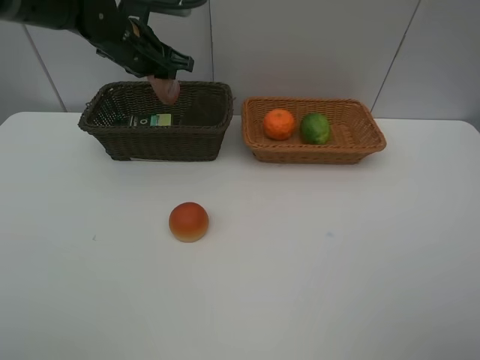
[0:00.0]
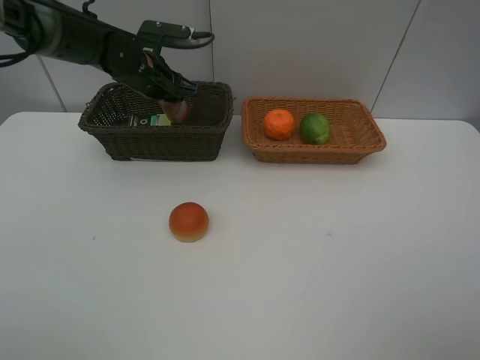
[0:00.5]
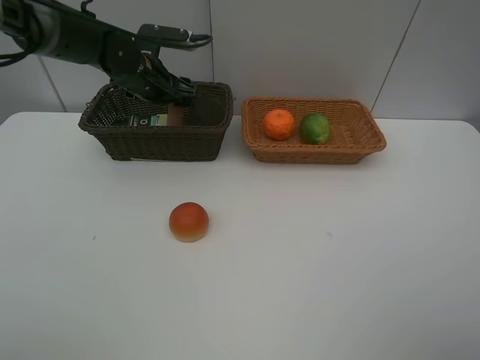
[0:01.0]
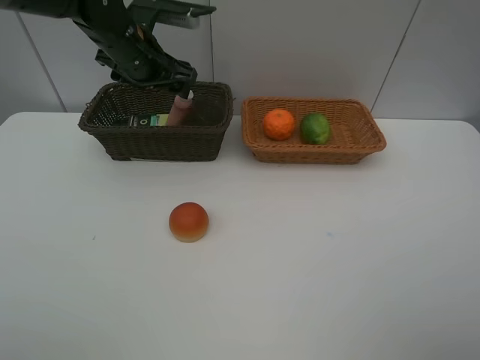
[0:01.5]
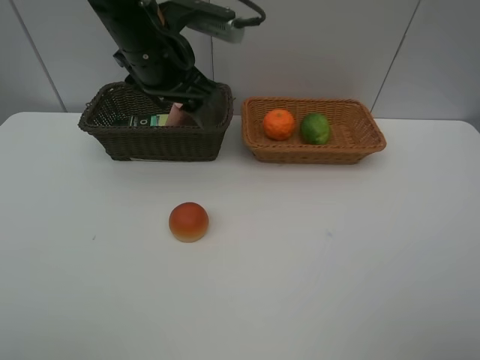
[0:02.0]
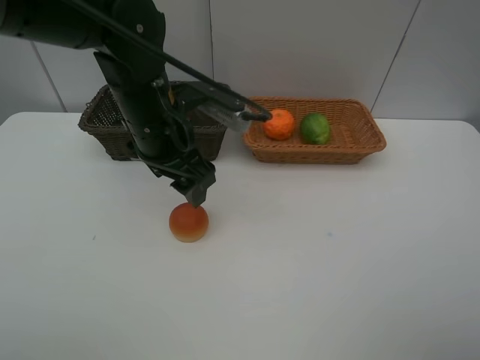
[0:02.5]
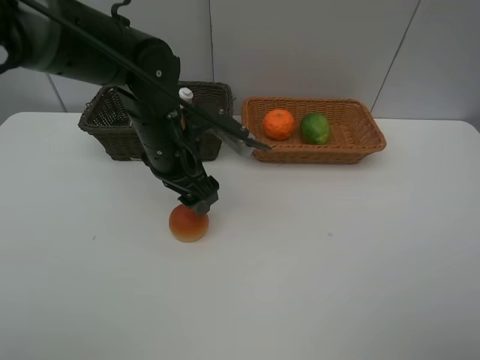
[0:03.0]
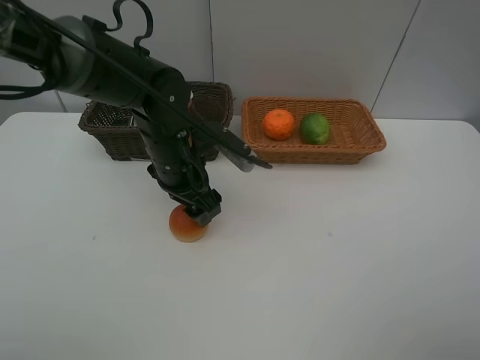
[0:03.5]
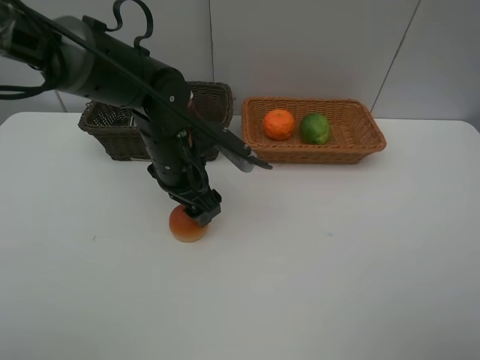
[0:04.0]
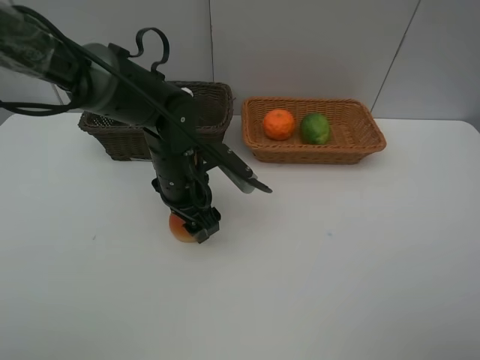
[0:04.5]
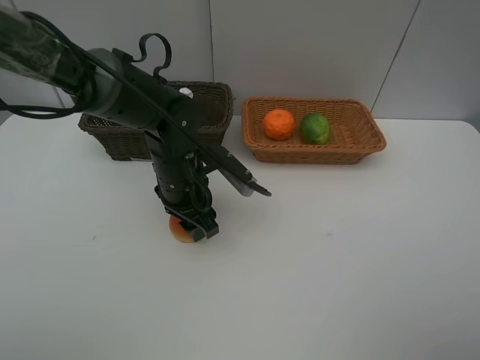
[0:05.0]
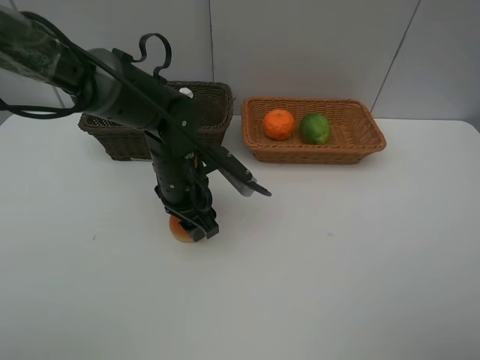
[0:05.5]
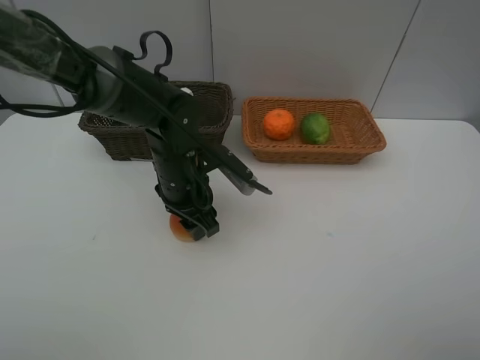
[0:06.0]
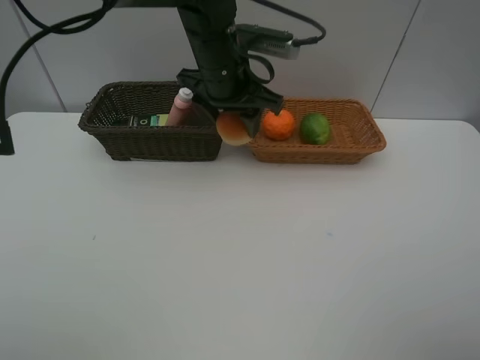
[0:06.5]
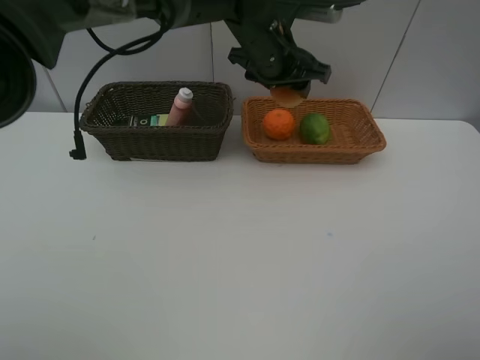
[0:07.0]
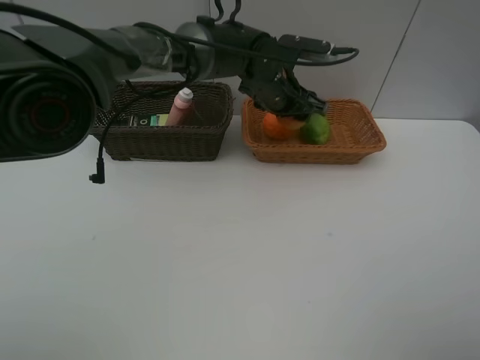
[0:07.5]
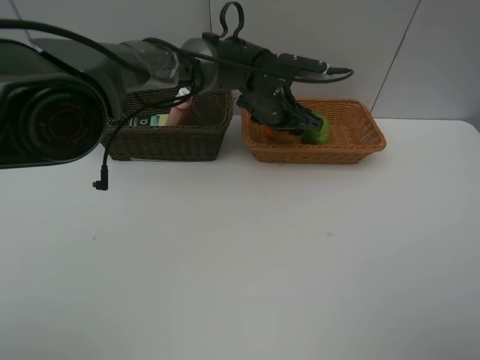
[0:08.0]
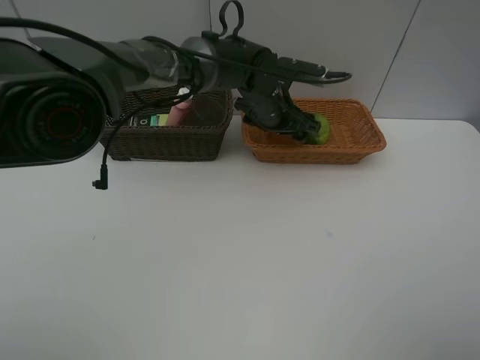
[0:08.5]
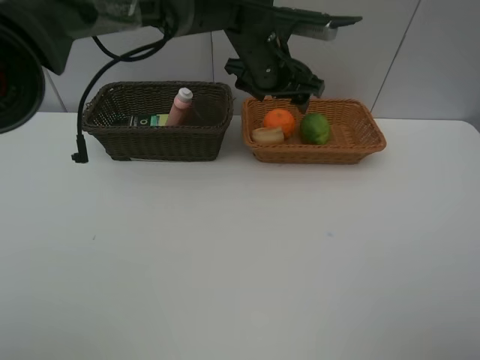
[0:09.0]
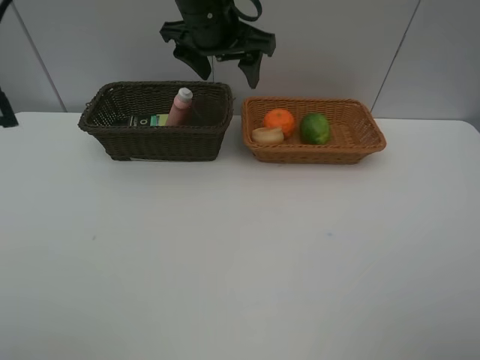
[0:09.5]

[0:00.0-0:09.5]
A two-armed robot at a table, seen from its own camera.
Task of the whole recording: place multiple objects separately in different baskets.
0:00.0 to 0:02.0: The left gripper moves backward, to the right and upward, approximately 15 cm, and opens its fingers.
0:02.0 to 0:04.0: The left gripper shifts roughly 15 cm downward.
0:04.0 to 0:05.5: The grippers stay close to where they were, moving slightly.
0:05.5 to 0:07.5: The left gripper moves forward, to the right and upward, approximately 20 cm.
0:07.5 to 0:09.5: The left gripper moves upward and to the left, about 15 cm.

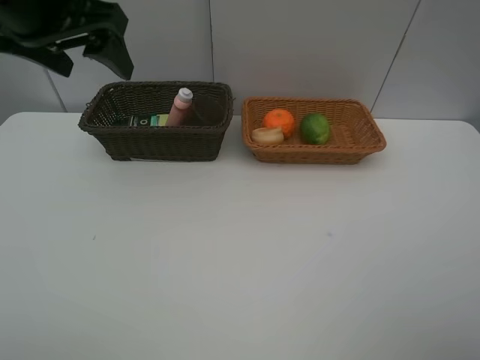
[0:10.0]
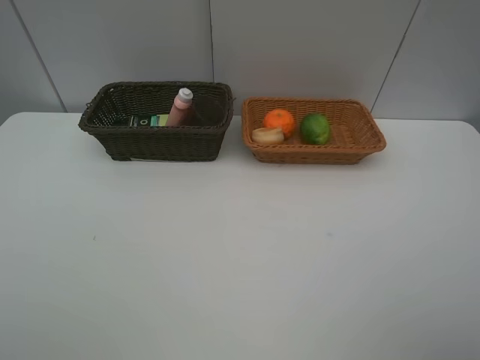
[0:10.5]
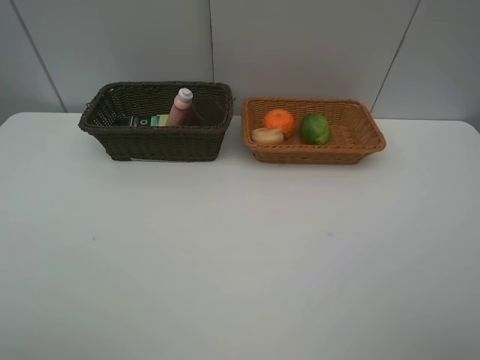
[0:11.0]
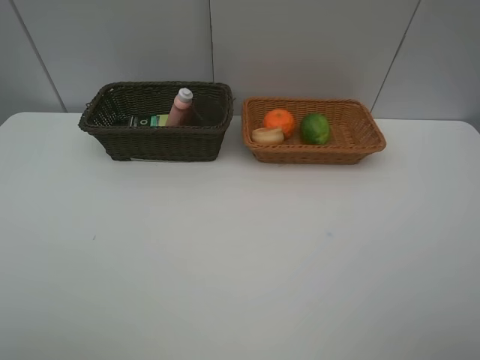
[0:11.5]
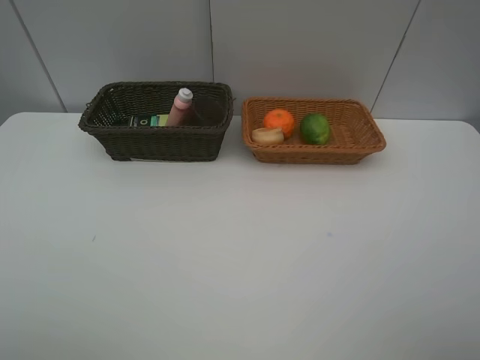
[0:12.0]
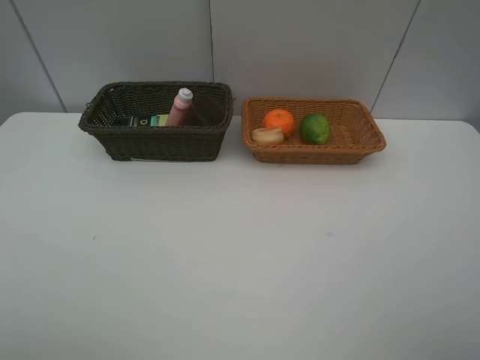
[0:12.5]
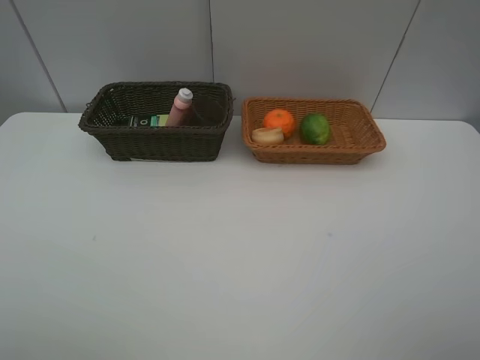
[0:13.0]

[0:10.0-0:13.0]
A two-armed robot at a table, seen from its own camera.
Task of the whole recording: place multiple objects separately in different baskets.
0:10.0 to 0:11.5: The left gripper goes about 25 cm backward.

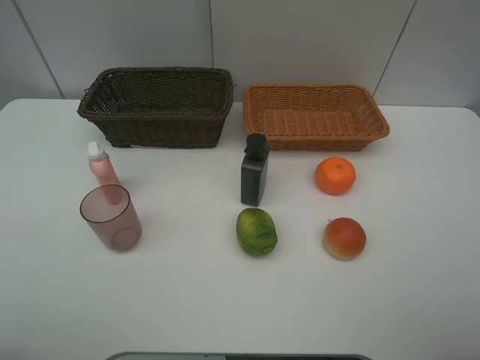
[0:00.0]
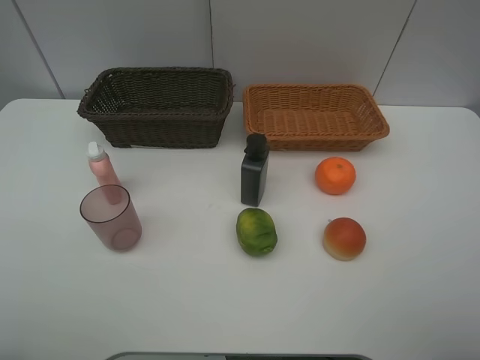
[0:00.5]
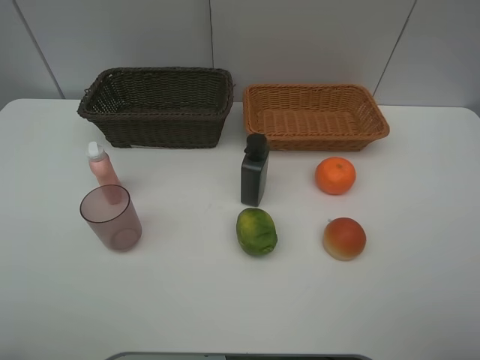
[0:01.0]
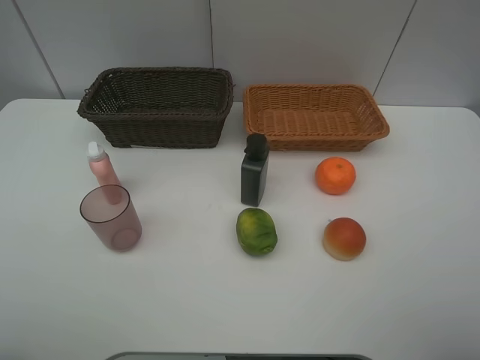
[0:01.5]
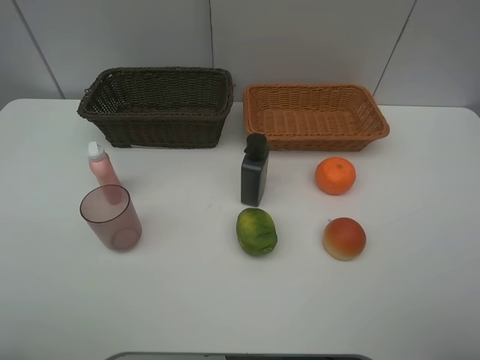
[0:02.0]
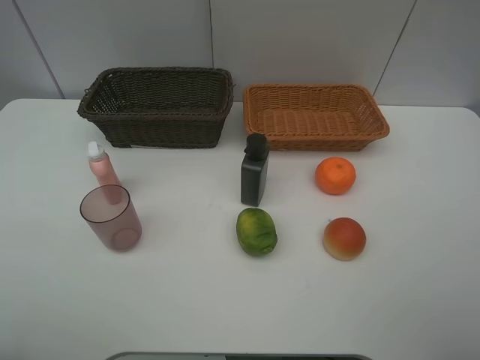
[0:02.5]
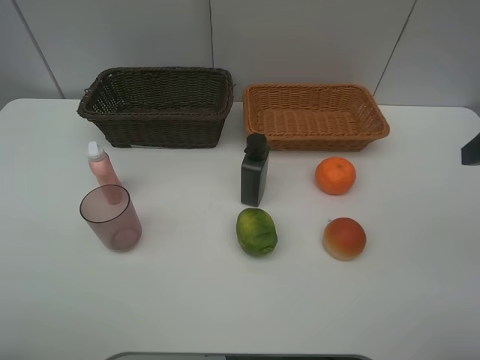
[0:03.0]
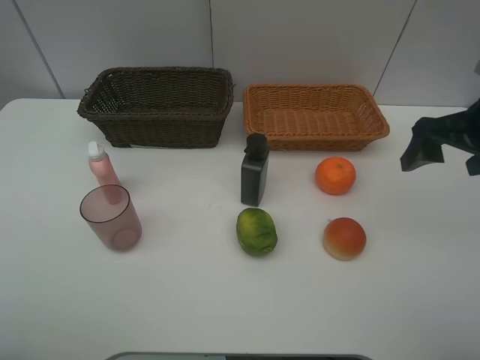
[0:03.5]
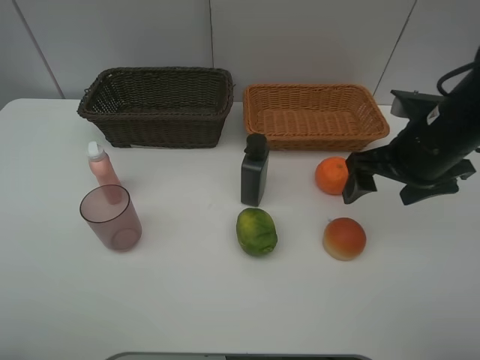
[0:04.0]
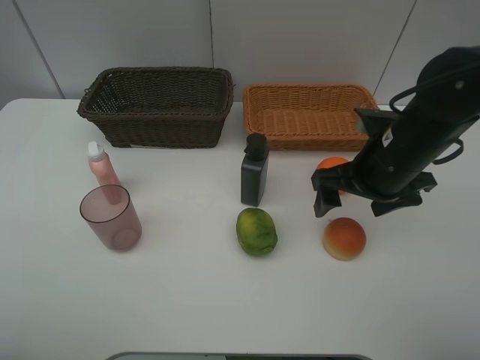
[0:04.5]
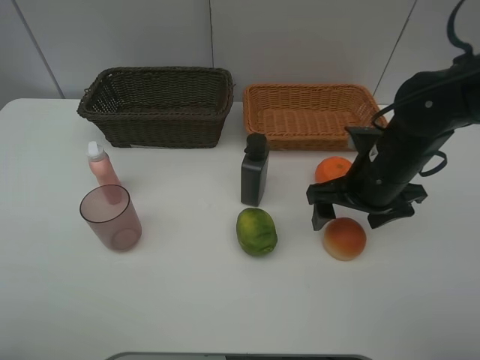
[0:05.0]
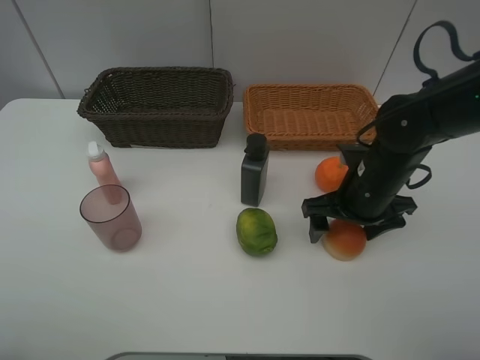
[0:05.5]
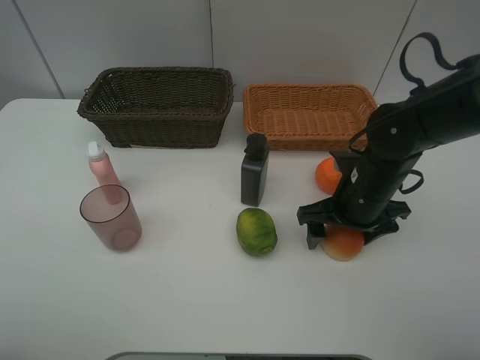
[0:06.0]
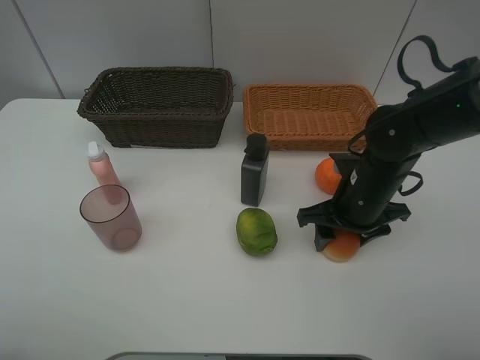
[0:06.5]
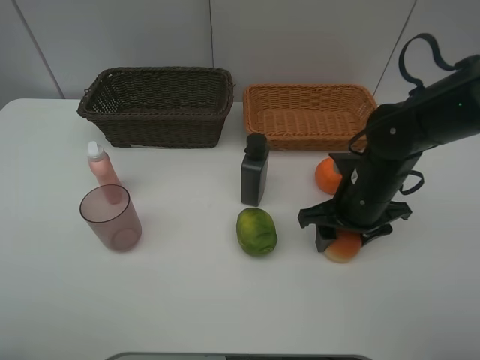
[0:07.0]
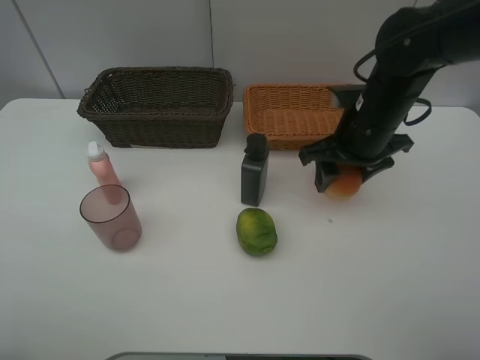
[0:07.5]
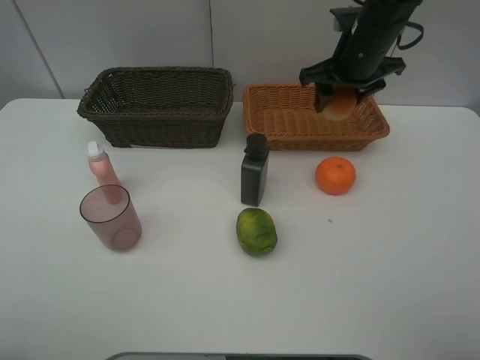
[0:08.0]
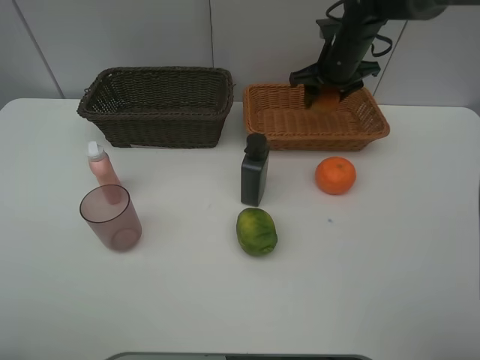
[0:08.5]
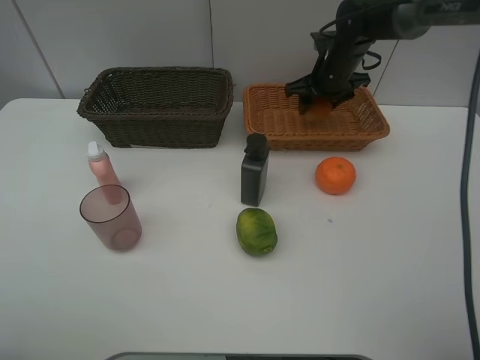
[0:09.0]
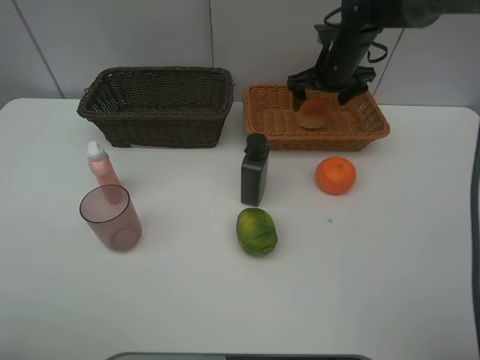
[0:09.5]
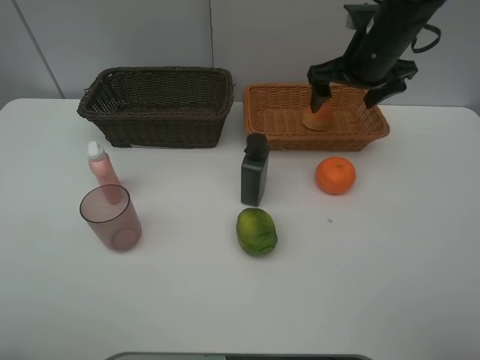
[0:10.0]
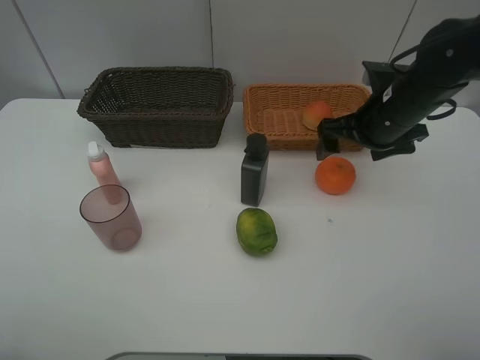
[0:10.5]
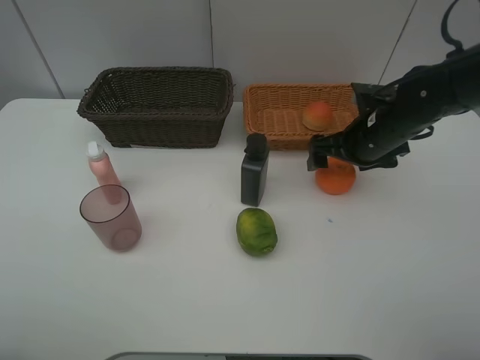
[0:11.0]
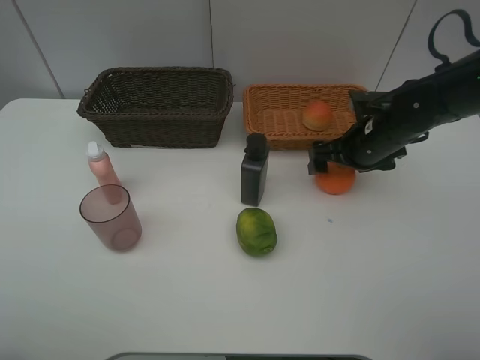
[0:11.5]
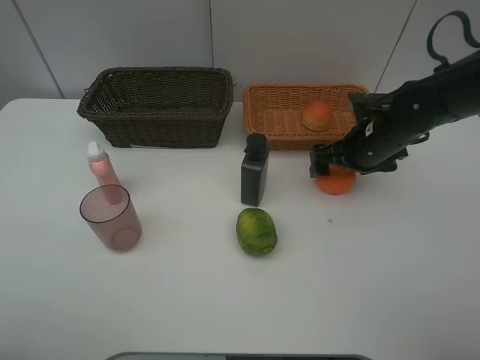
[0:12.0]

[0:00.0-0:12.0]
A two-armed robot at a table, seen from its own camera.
Task of the whole recording: place multiple objects separately in different baskets.
0:00.0 to 0:02.0: Both grippers stay about where they are.
0:02.0 to 0:04.0: The right gripper travels forward by roughly 25 cm.
0:04.0 to 0:06.0: The right gripper goes about 10 cm downward.
0:06.0 to 0:08.0: The right gripper is displaced forward and upward by roughly 20 cm, and closes up.
0:08.0 to 0:10.0: The right gripper travels forward and back again, approximately 5 cm each way, and opens up.
0:10.0 to 0:12.0: The right gripper is displaced downward by approximately 10 cm.

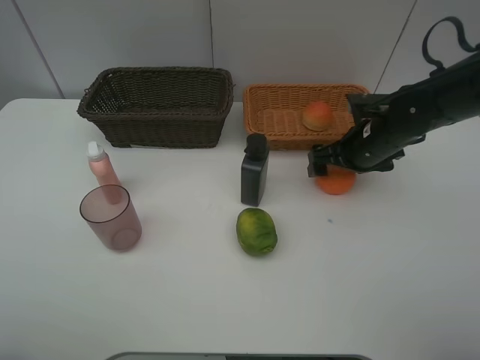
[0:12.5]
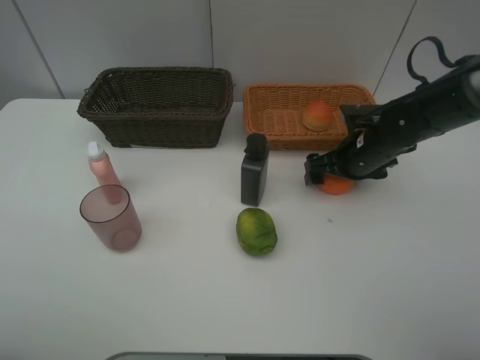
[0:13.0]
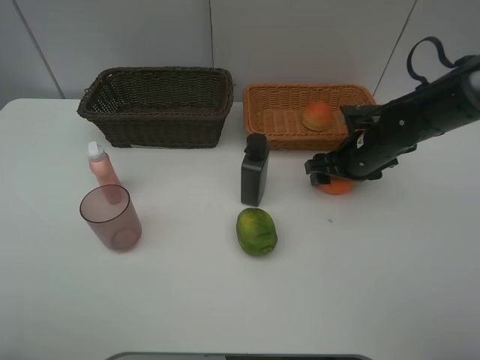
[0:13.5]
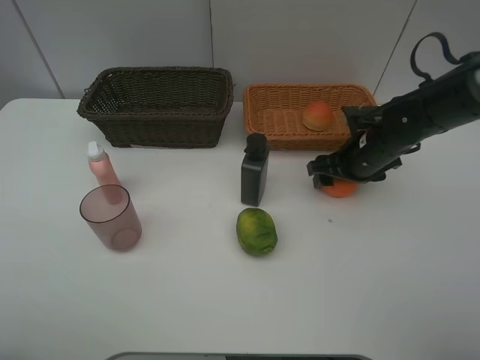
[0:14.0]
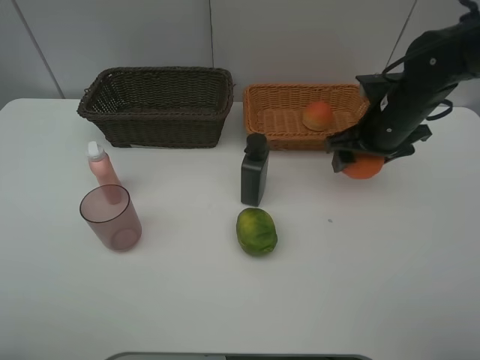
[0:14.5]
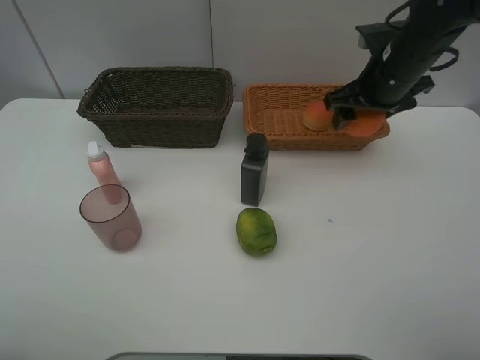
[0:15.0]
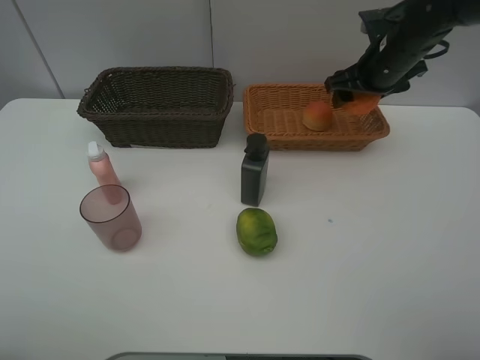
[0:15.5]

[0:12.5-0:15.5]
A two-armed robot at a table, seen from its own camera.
Task of the whole recording: place multiple objects separately in different baskets.
0:12.5 to 0:14.0: The right gripper closes.
0:14.0 to 0:15.5: The right gripper shifts about 15 cm upward and forward.
